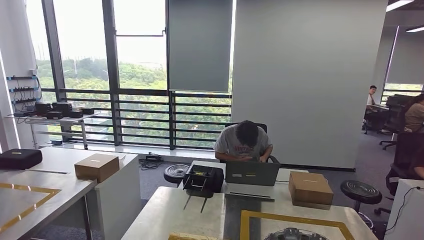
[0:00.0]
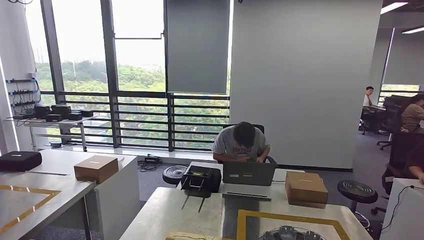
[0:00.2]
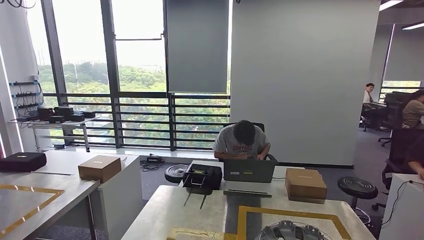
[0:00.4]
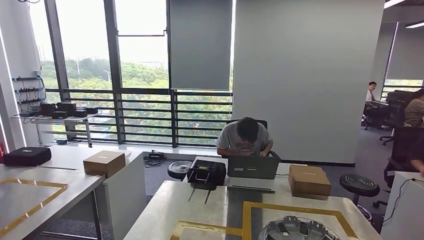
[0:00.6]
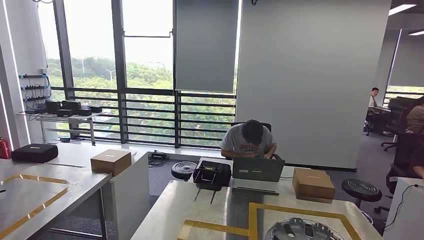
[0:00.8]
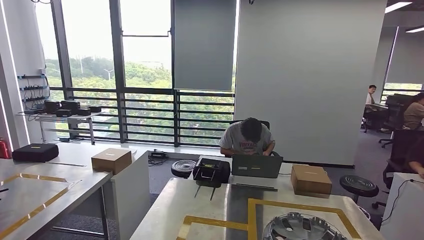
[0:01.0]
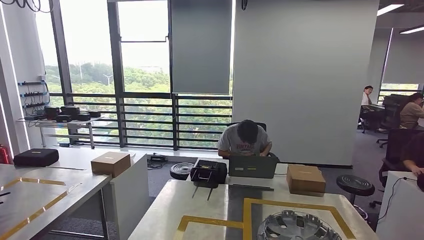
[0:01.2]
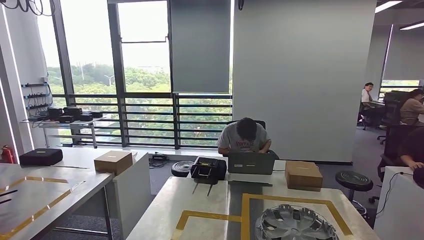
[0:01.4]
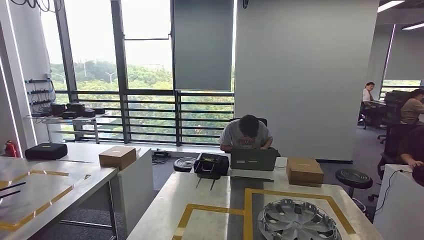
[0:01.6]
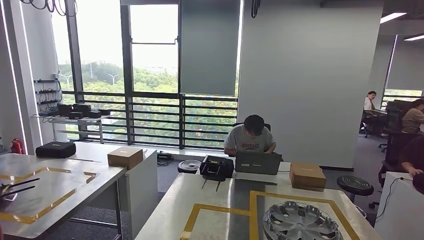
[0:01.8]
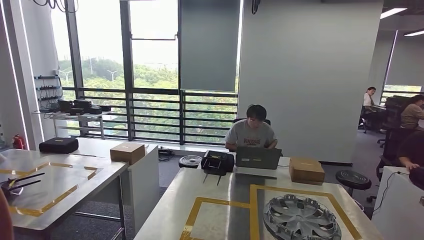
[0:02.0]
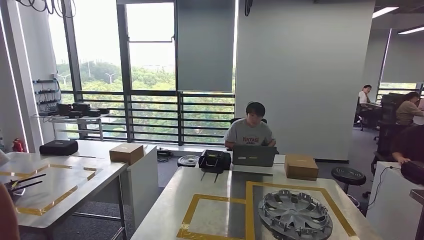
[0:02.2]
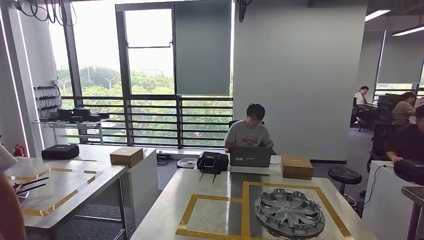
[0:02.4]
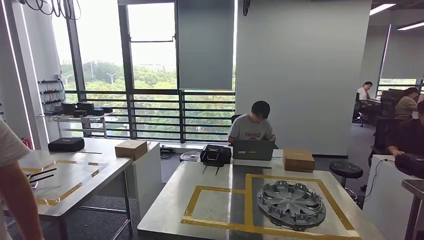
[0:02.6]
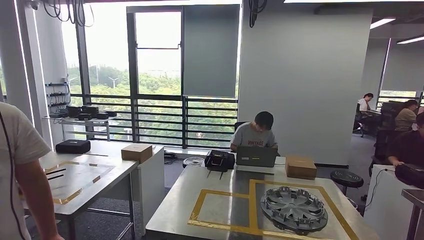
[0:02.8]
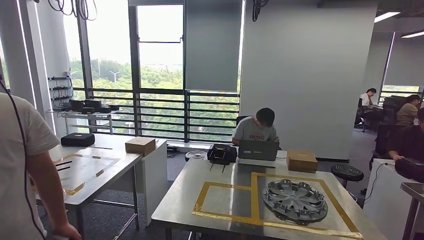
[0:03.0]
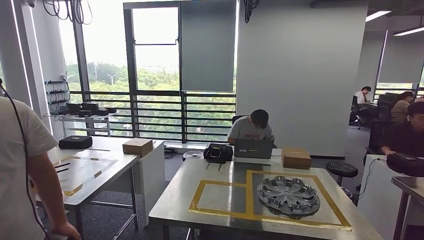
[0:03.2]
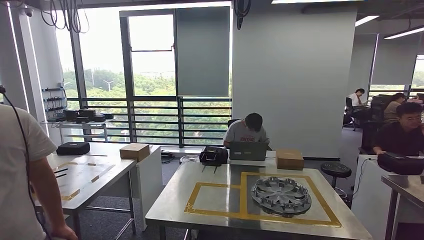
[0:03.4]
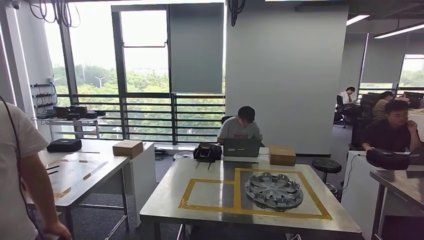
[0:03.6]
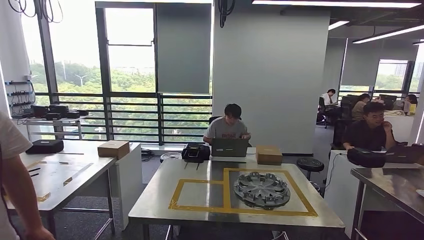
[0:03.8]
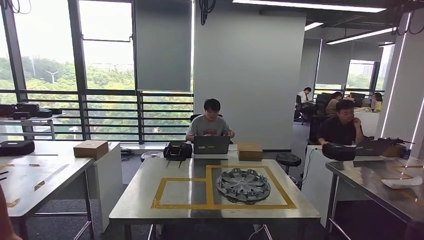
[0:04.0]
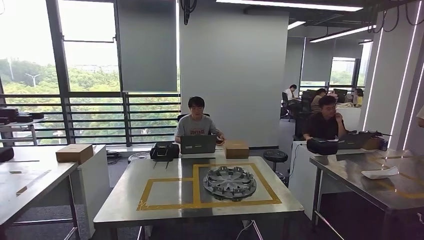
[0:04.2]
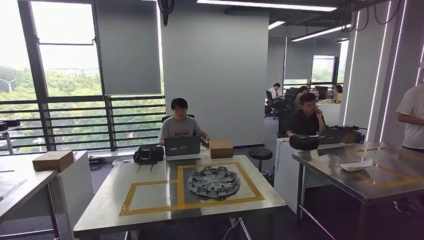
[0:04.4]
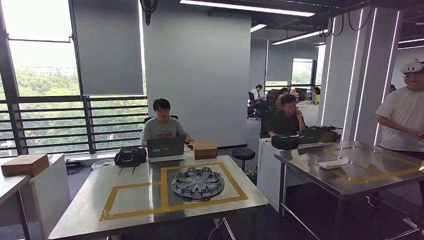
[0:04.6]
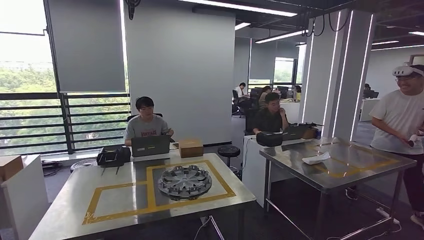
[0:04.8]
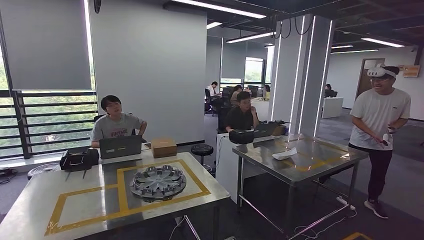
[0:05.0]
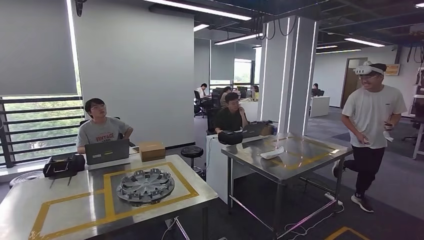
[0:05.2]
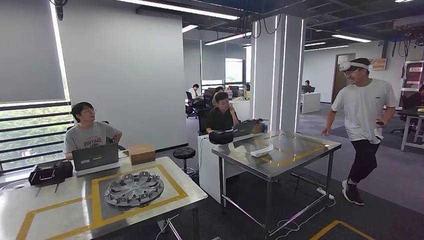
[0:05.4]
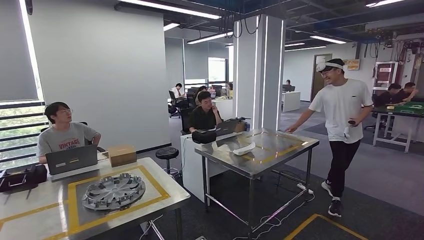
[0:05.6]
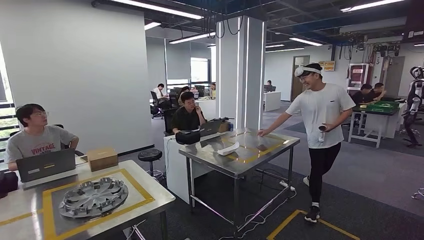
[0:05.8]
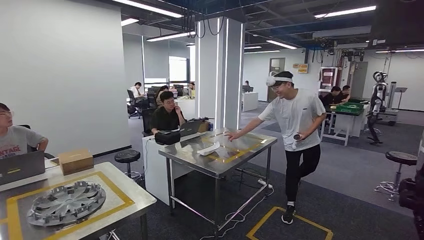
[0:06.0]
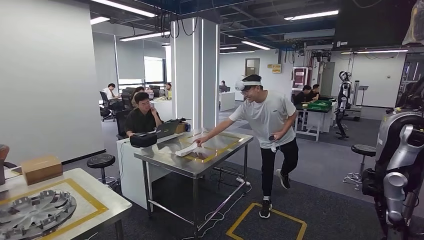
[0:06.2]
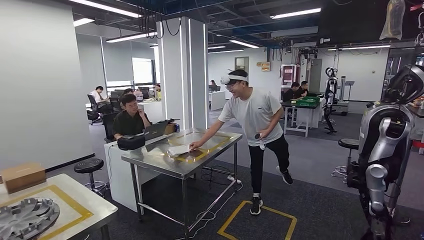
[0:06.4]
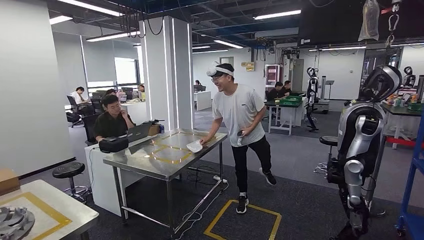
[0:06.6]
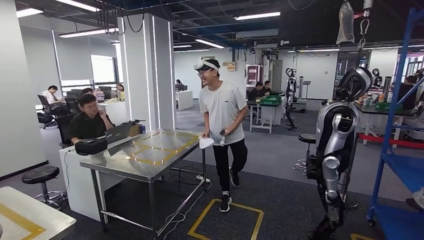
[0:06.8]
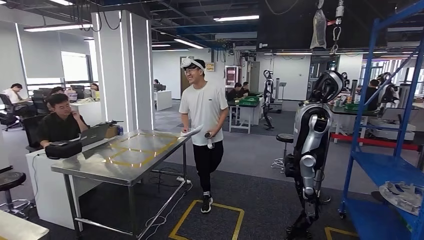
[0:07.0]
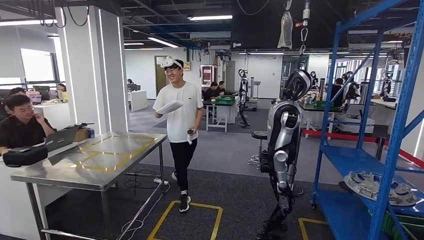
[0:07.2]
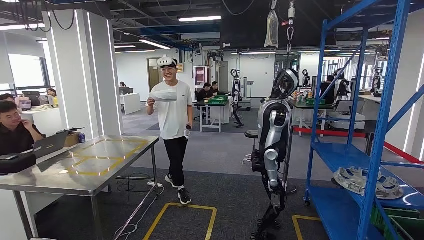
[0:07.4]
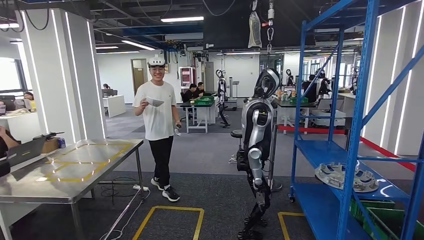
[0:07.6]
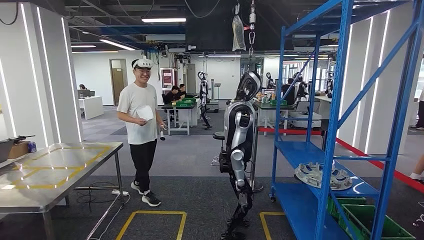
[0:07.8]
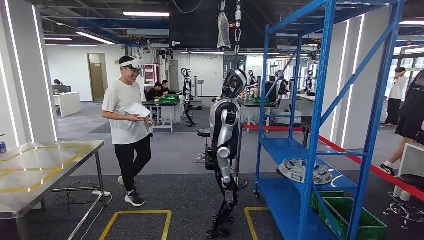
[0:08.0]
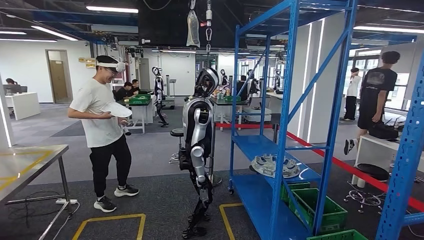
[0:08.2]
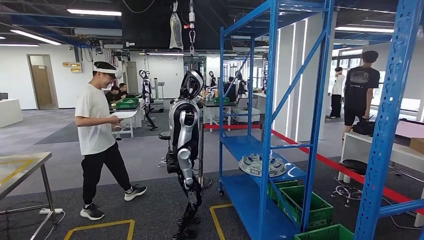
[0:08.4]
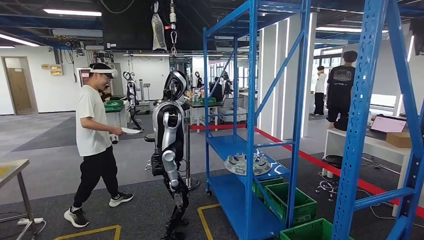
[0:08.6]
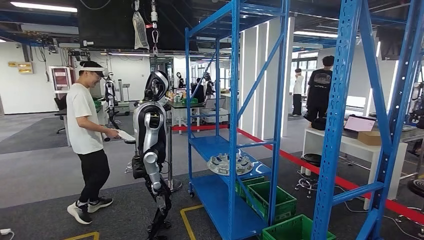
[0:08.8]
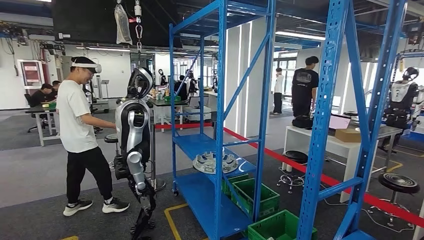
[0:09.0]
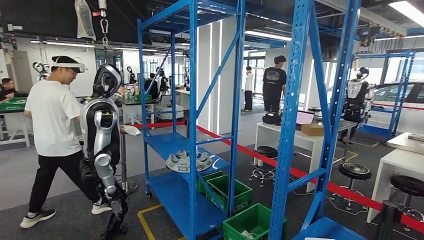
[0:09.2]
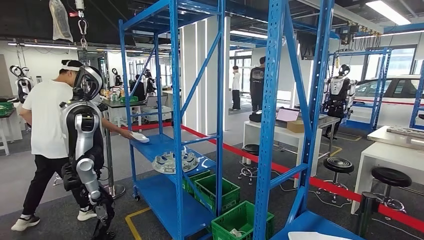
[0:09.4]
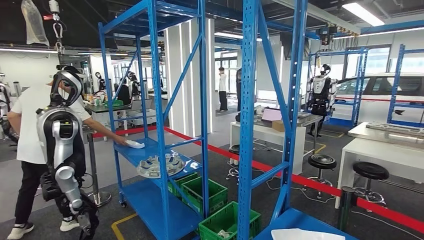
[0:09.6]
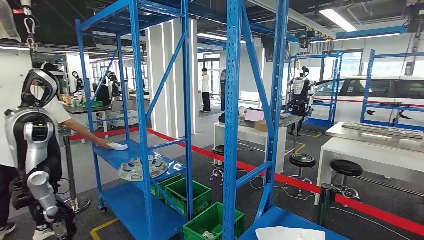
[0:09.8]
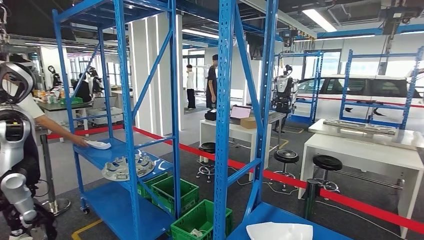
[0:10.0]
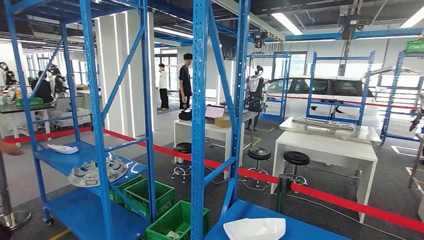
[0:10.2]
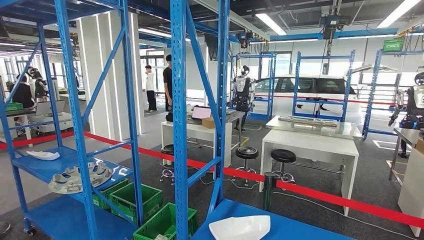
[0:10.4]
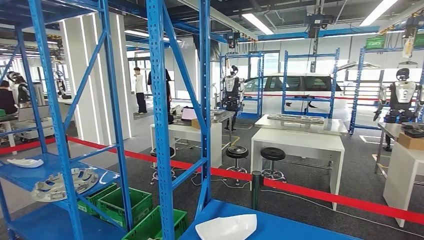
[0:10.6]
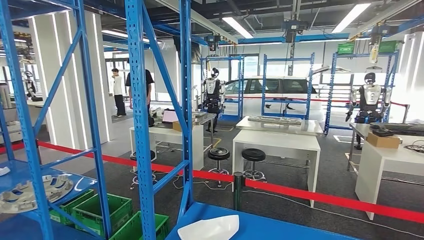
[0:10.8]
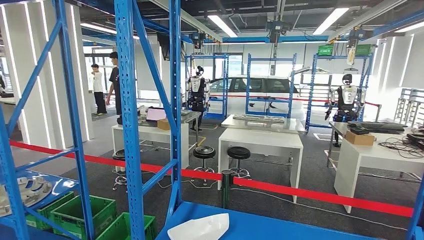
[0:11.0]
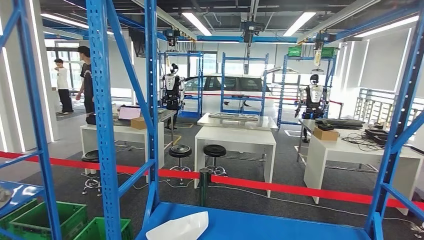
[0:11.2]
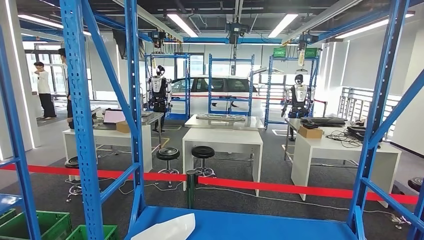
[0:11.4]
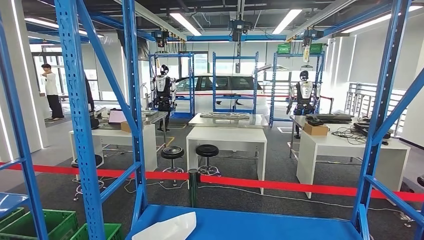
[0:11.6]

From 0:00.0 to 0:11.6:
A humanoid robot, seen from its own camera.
Step, from 0:01.2 to 0:11.6: Move to the initial position at the workbench.
